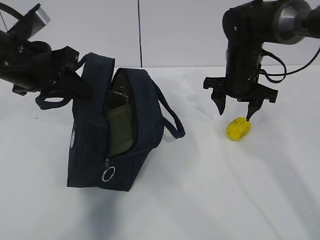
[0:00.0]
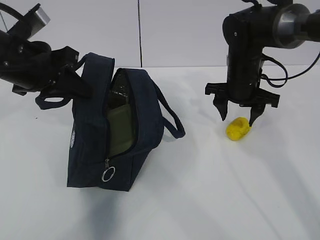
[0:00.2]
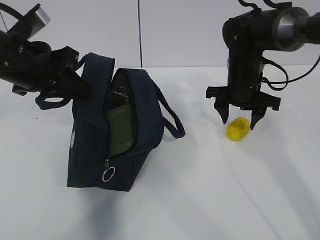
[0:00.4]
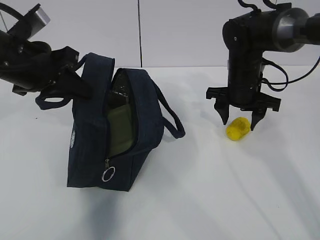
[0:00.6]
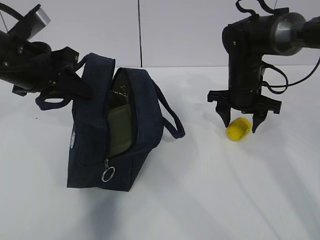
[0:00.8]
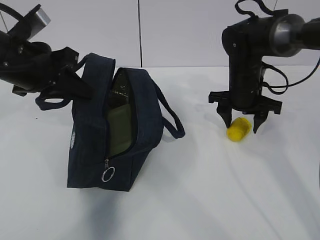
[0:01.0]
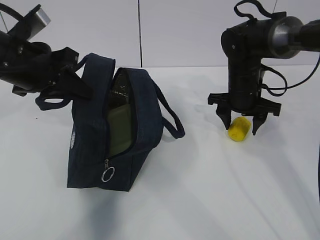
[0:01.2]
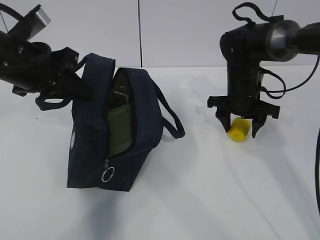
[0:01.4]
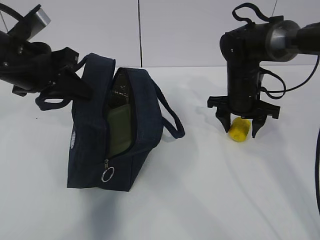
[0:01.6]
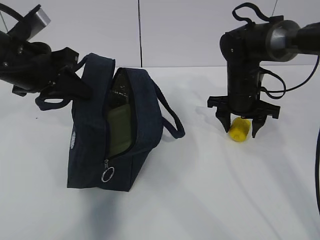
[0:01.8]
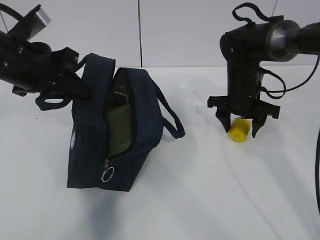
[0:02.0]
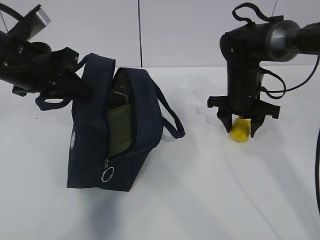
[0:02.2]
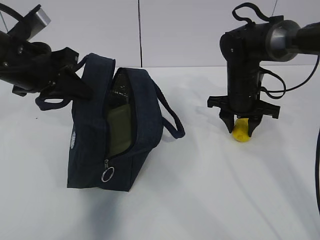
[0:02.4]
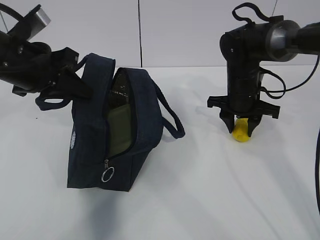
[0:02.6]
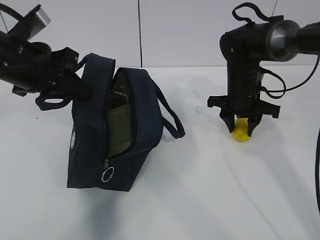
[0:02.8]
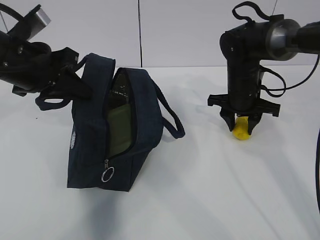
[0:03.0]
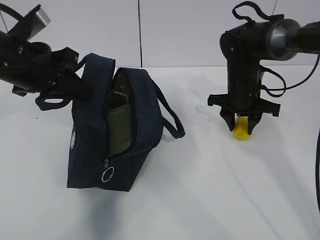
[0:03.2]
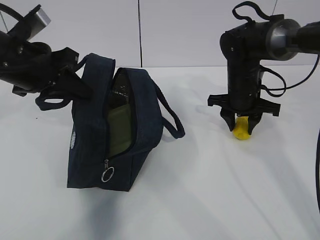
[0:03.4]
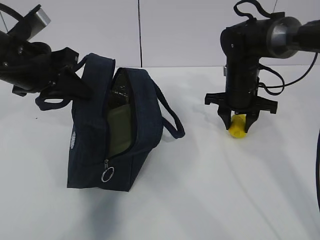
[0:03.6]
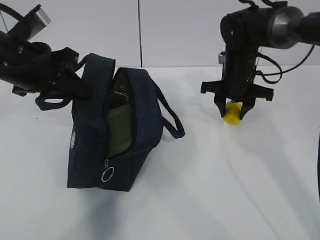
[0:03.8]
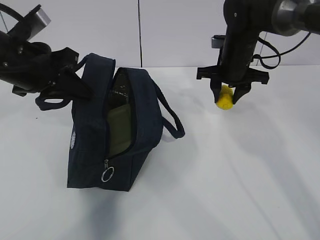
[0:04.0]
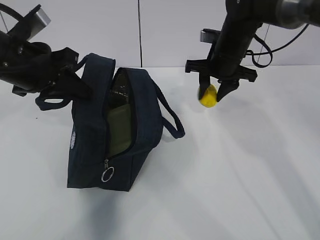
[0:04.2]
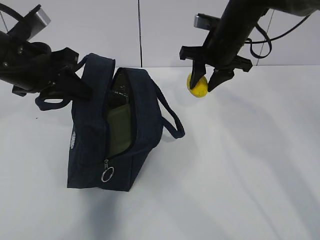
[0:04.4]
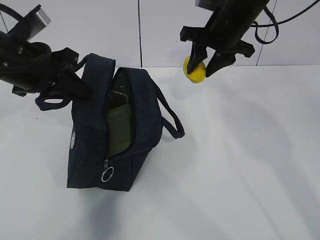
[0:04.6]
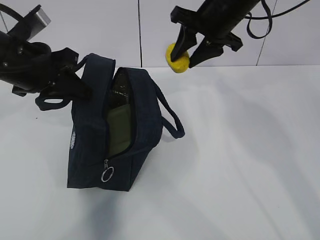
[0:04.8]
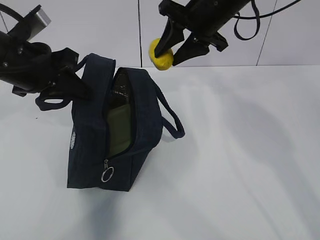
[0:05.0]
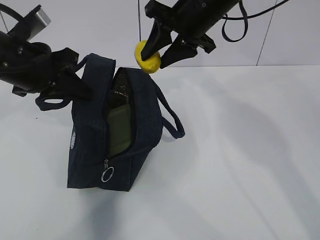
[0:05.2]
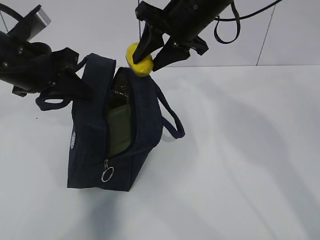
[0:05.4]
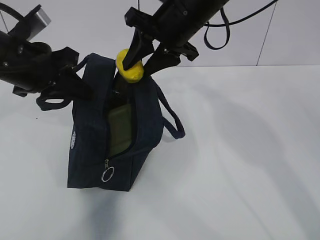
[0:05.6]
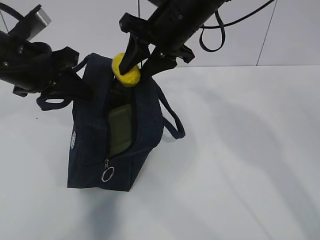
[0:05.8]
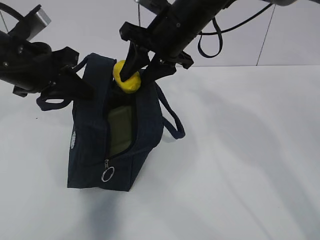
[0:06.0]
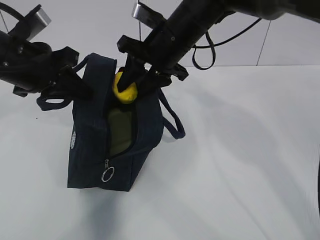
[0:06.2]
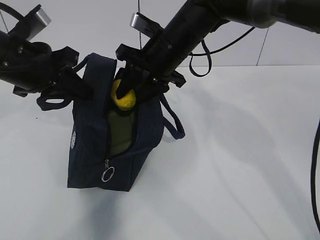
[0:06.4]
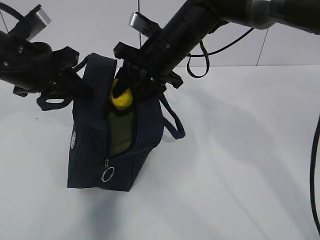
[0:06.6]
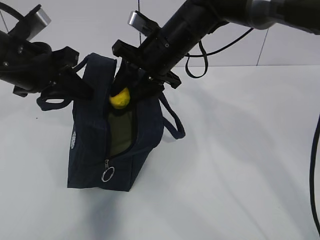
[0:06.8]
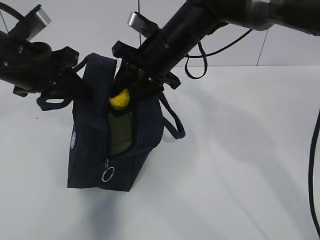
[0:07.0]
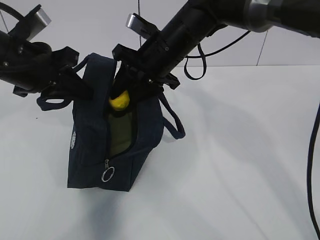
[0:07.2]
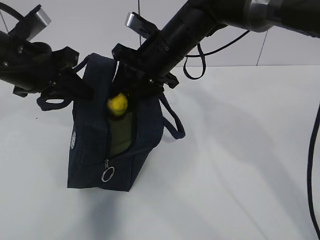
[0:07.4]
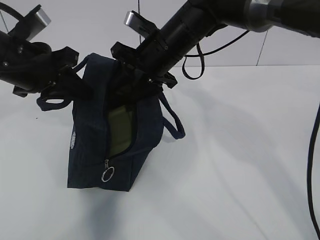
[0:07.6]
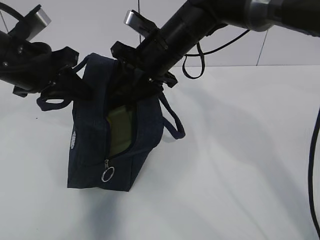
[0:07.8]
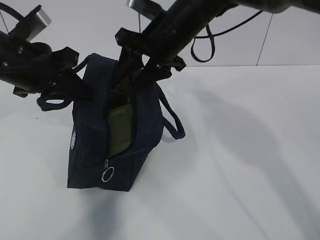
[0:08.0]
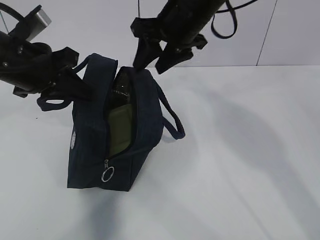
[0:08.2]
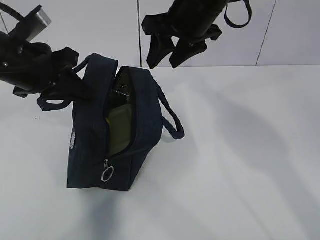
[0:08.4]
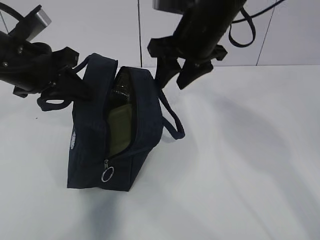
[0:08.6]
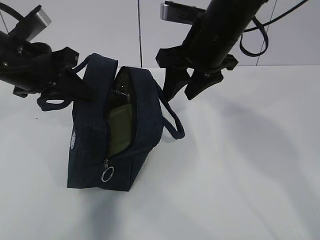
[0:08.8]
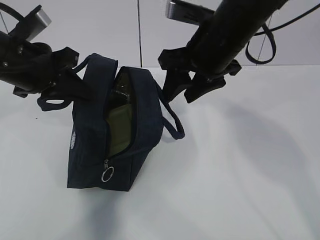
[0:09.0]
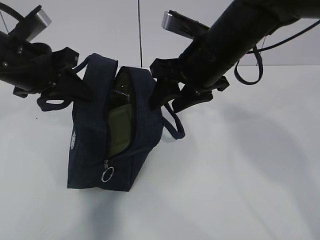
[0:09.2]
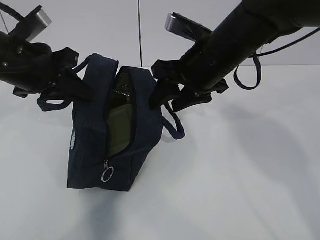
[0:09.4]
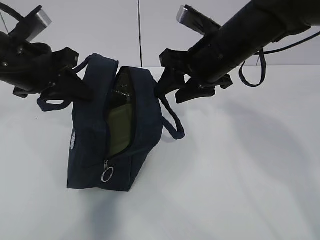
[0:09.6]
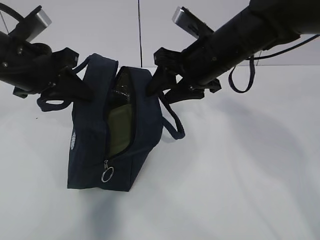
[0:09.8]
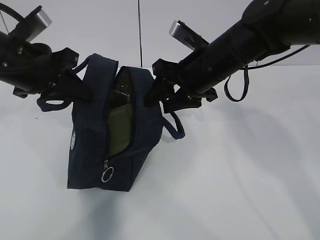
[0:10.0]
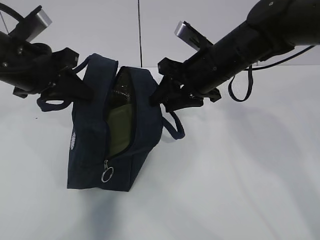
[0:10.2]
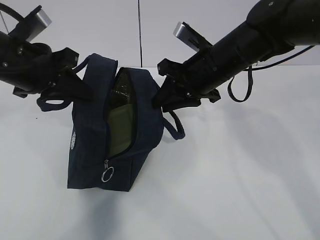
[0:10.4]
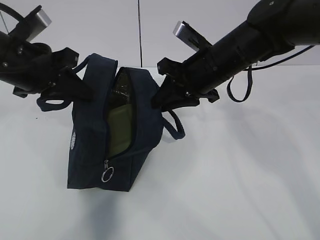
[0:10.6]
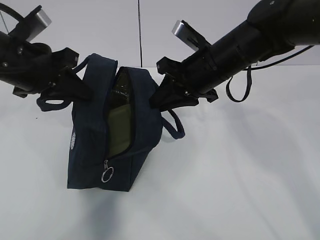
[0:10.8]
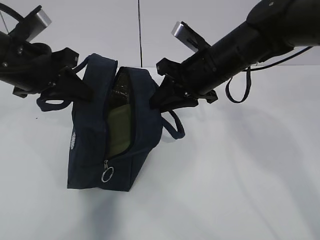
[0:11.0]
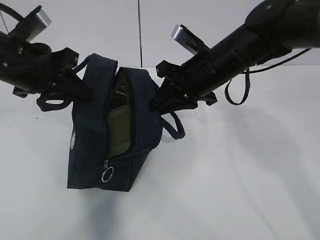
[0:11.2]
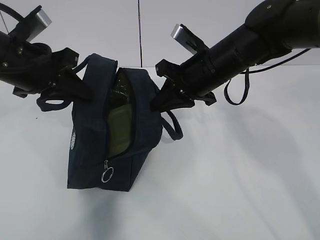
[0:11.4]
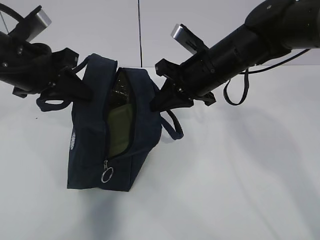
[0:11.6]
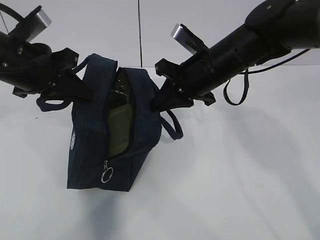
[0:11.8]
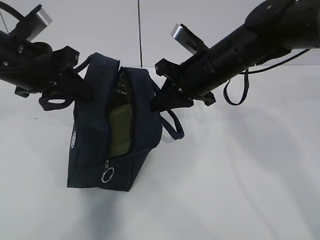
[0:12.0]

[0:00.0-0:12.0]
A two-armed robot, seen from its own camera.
Step, 0:01.6 to 0:04.4: Move the lunch bag to the right.
0:00.0 to 0:01.6: The grippers stay close to where they were, moving slightly.
0:01.6 to 0:03.0: Both grippers stay about where they are.
0:03.0 to 0:04.4: The right gripper shifts some 10 cm upward.
0:04.4 to 0:06.0: The right gripper travels to the left, backward and upward by about 10 cm.
0:06.0 to 0:07.6: There are only small adjustments of the grippers.
0:07.6 to 0:09.0: The right gripper heads backward and to the right, covering about 10 cm.
0:09.0 to 0:10.4: The right gripper heads downward, covering some 5 cm, and closes.
0:10.4 to 0:12.0: The right gripper closes up.

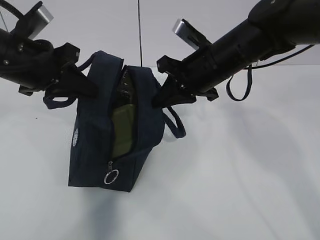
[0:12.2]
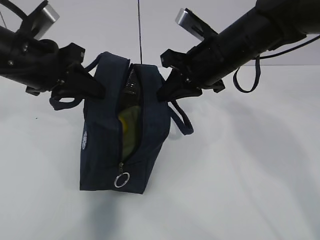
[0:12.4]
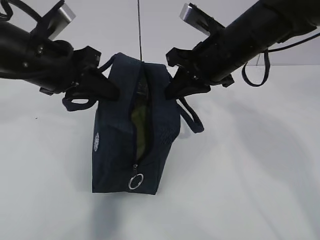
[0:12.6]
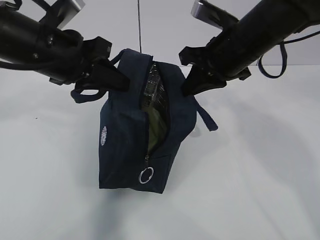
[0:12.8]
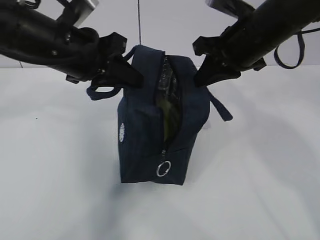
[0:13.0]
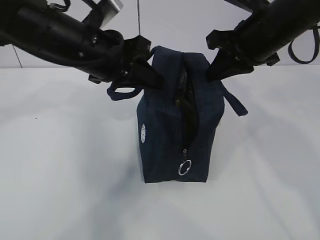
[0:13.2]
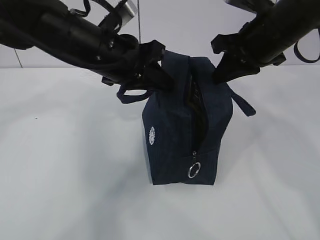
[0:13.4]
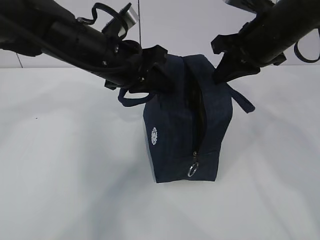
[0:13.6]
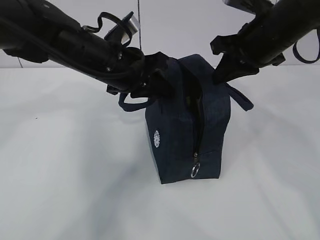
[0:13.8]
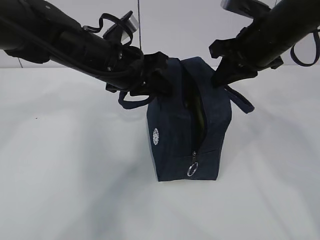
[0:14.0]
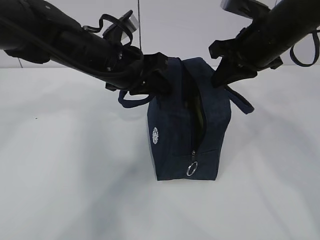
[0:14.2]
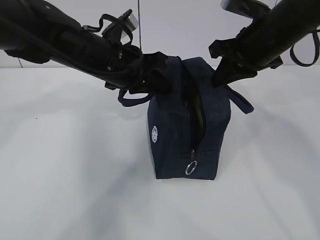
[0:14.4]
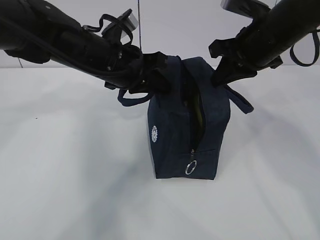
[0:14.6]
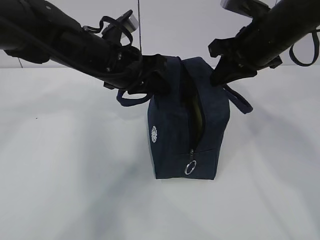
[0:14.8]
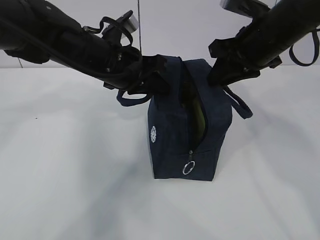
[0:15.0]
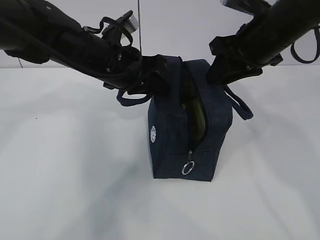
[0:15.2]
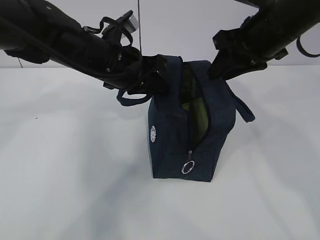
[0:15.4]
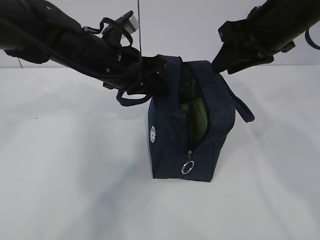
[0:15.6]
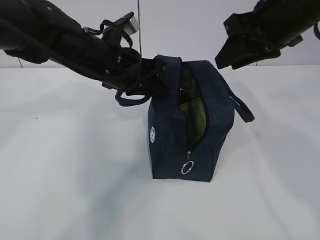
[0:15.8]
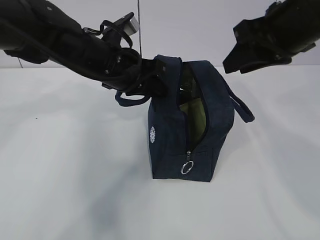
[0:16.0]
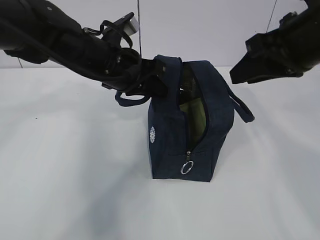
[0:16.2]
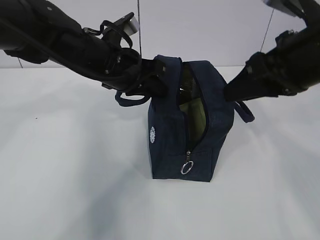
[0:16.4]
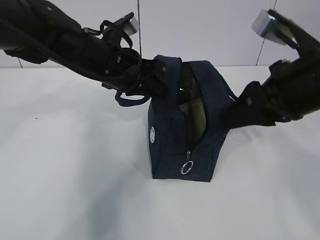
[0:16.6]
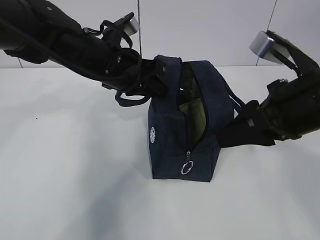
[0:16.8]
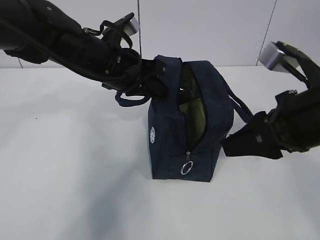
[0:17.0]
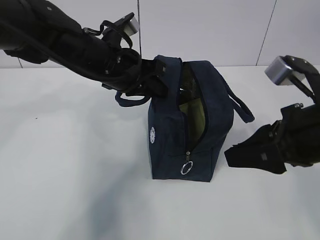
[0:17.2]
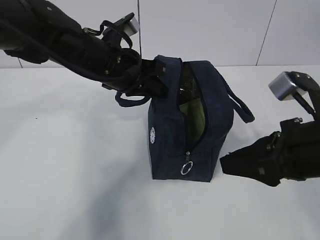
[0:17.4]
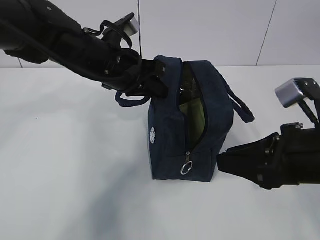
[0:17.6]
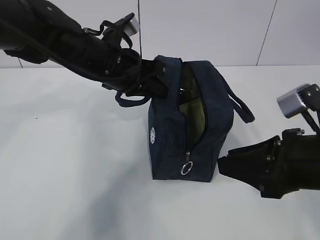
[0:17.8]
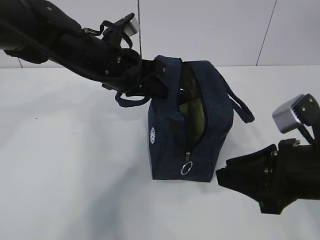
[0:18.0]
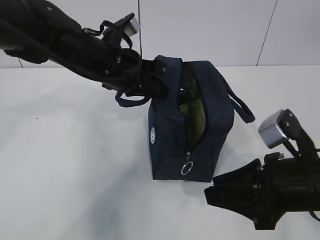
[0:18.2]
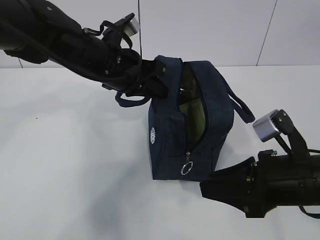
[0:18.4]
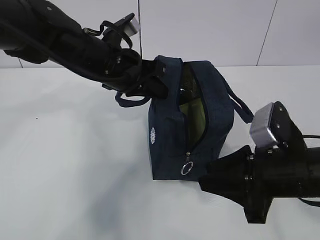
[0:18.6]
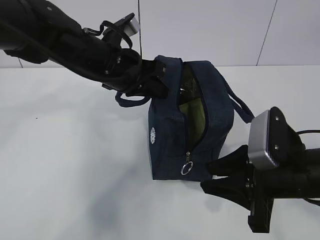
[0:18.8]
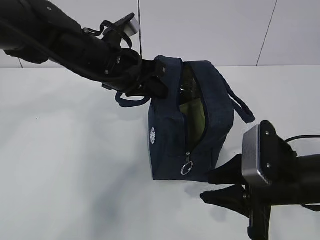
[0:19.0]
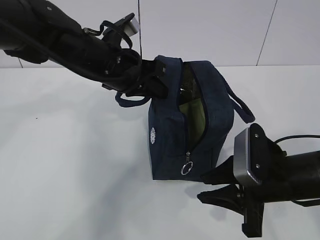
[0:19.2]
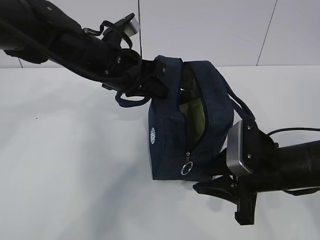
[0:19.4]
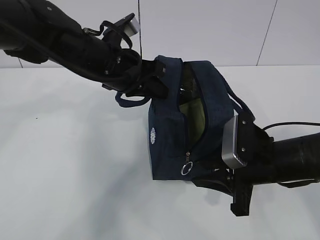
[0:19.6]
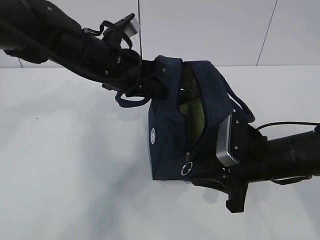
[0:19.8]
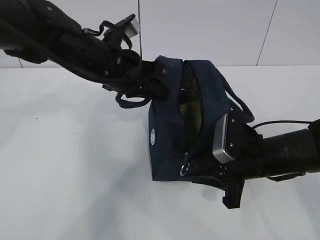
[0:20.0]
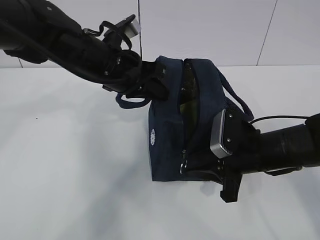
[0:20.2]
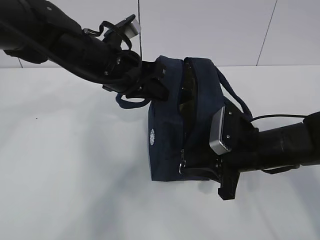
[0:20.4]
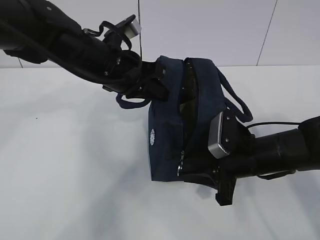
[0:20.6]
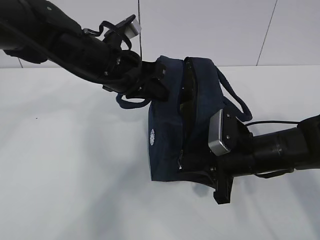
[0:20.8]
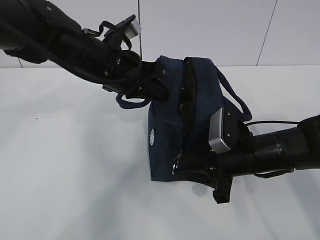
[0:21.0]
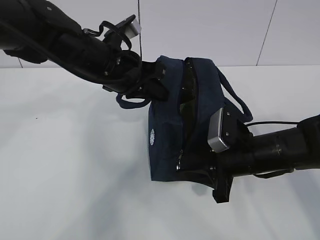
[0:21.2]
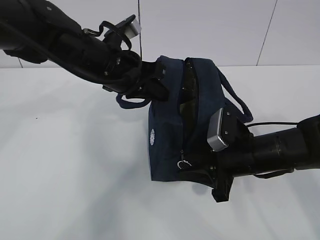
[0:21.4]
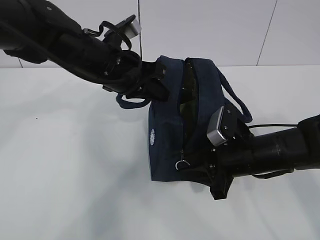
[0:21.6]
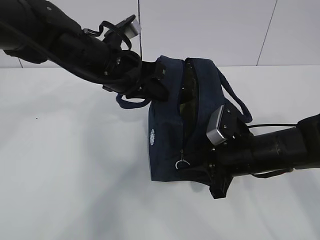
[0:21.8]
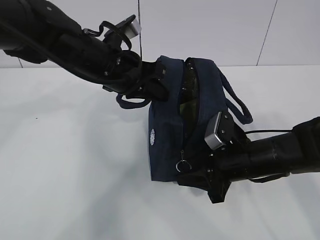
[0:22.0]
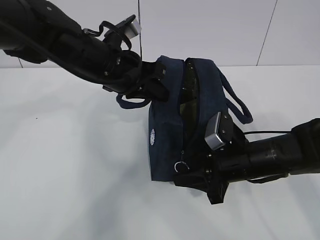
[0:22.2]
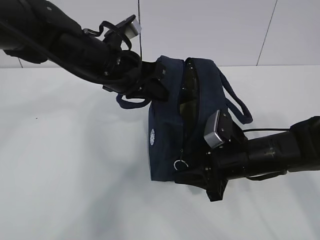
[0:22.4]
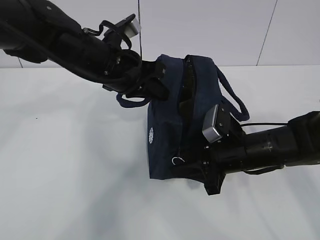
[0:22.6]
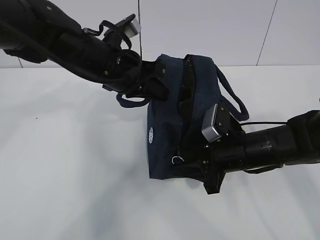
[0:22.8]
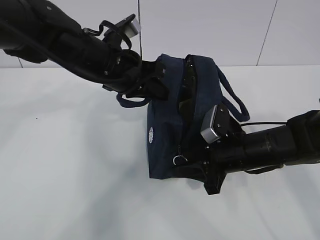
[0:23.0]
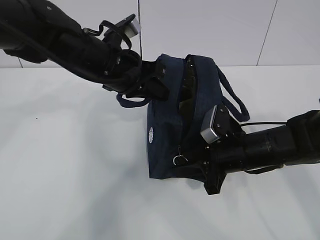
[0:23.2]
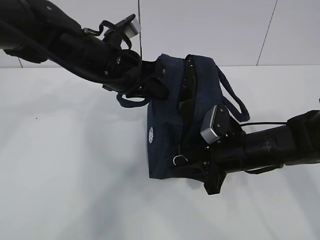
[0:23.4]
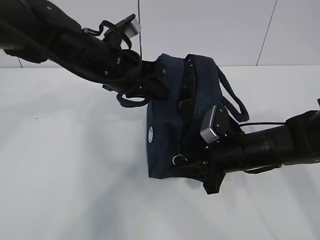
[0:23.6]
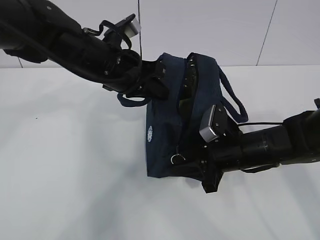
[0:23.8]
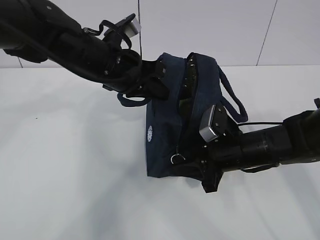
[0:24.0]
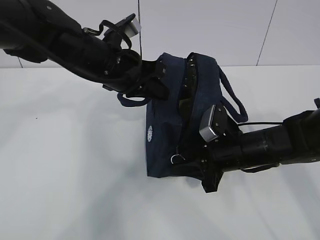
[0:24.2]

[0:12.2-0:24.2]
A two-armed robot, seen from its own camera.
Step, 0:12.2 to 0:19.2: Grab the lunch bag with your left hand.
0:12.2 to 0:13.8: The right gripper goes roughly 10 cm to the right and upward, while the left gripper goes roughly 10 cm to the right.
0:13.8 to 0:15.2: The right gripper opens its fingers.
0:15.2 to 0:16.6: The right gripper shifts roughly 10 cm backward.
0:16.6 to 0:18.2: The right gripper heads downward and backward, covering some 10 cm.
0:18.2 to 0:19.8: The right gripper shifts approximately 10 cm forward and downward.
0:19.8 to 0:22.6: The grippers stay close to where they were, moving slightly.
0:22.6 to 0:24.2: Both grippers stay put.
